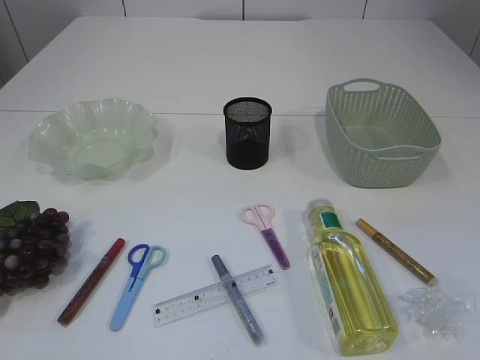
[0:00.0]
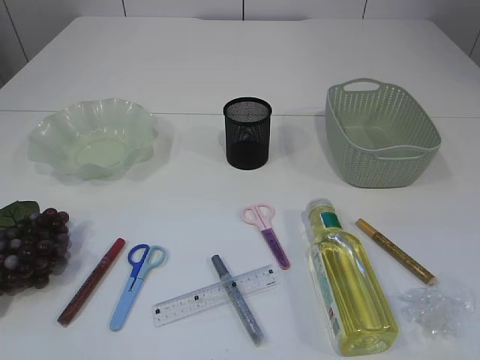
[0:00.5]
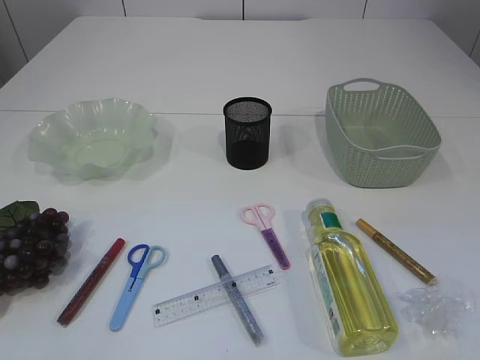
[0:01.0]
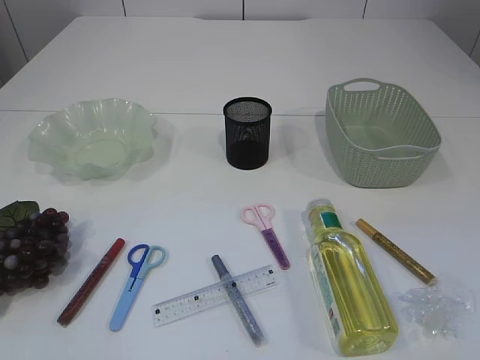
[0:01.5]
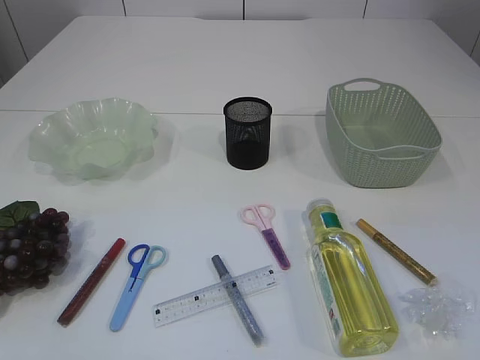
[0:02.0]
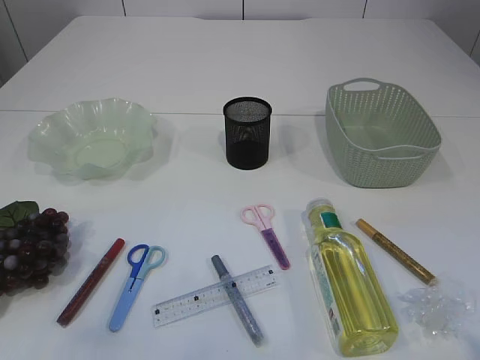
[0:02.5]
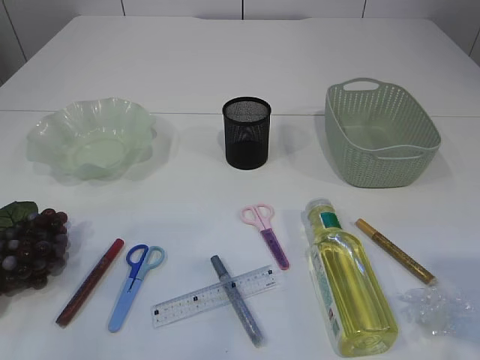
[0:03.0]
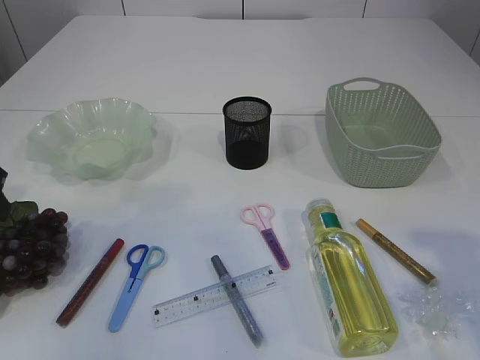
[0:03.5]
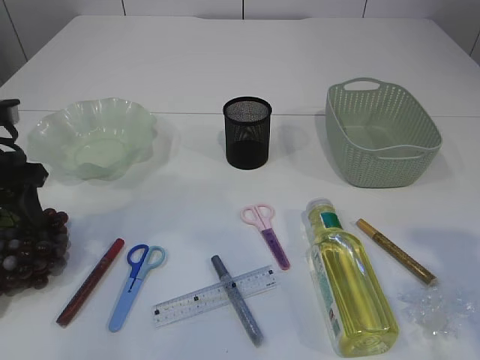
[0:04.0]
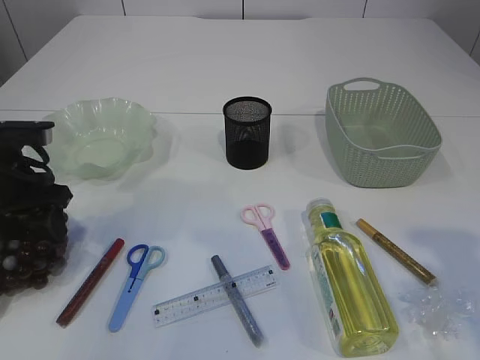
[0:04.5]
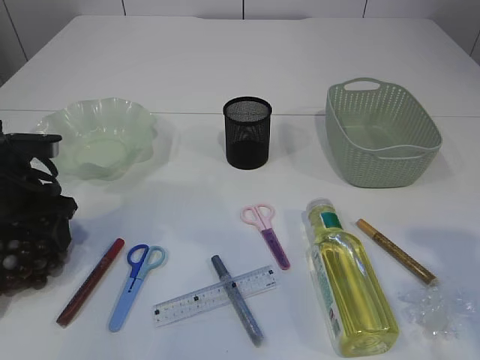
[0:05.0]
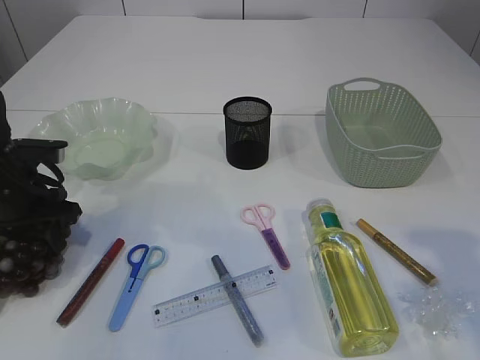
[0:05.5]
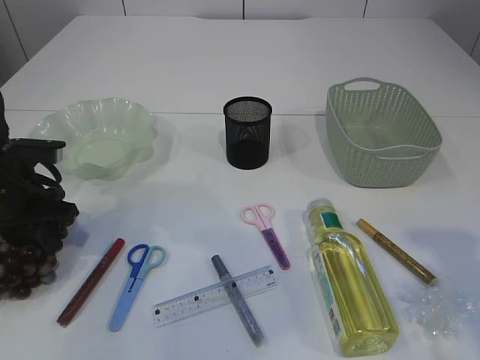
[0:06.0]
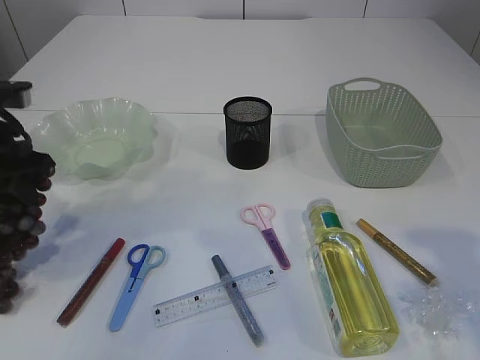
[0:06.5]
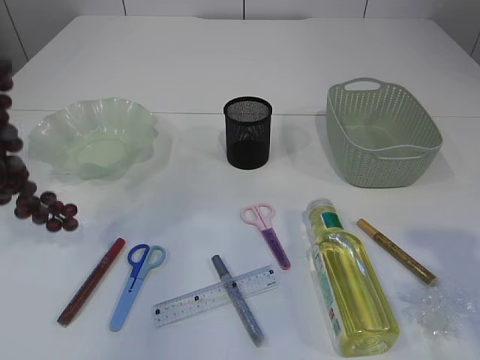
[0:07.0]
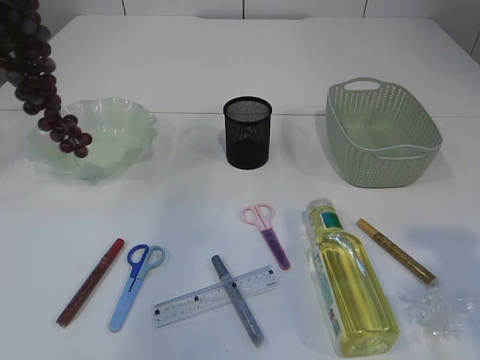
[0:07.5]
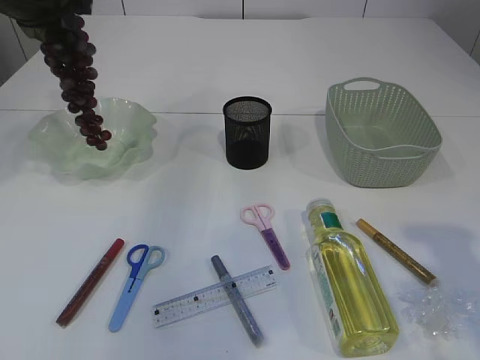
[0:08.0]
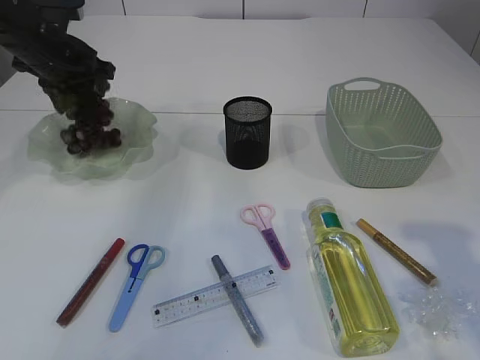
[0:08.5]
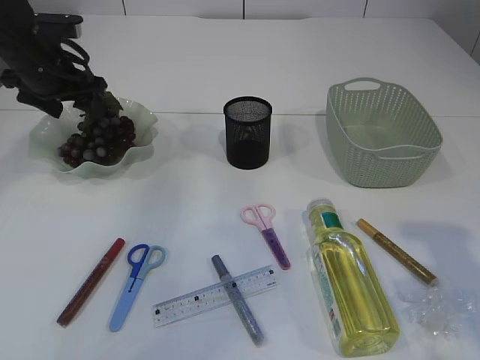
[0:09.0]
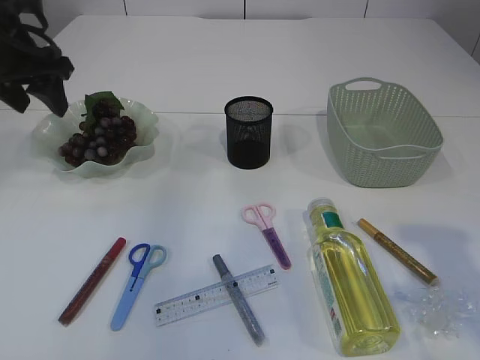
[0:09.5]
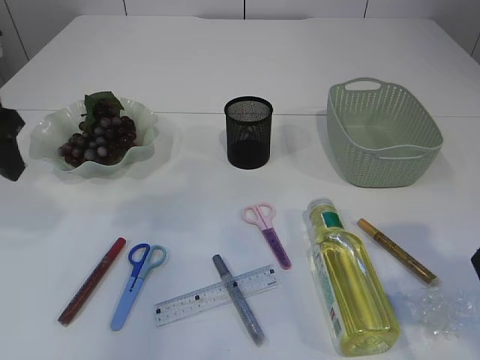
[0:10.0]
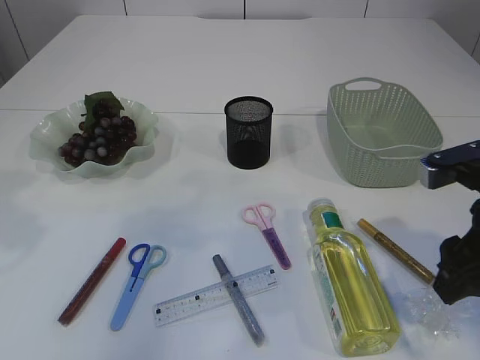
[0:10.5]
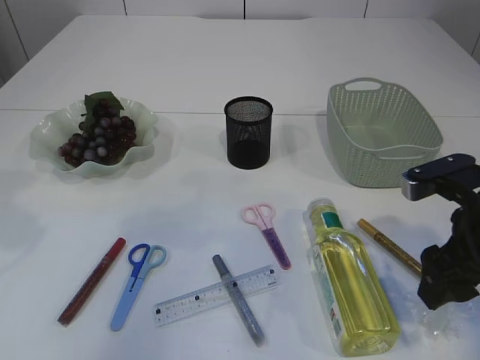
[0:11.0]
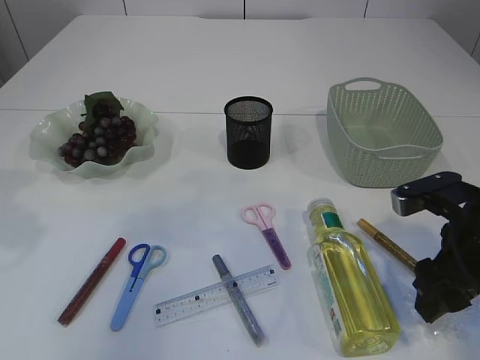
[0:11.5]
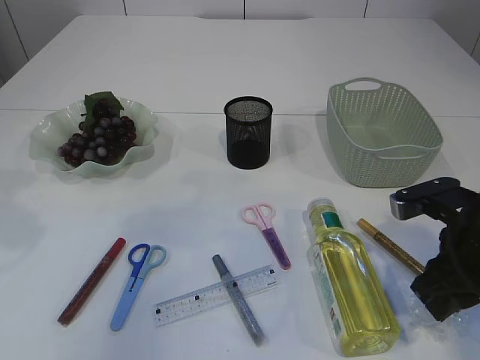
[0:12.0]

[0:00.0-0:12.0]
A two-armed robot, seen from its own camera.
Step, 0:00.0 to 0:07.0: Pick up the grapes.
Step, 0:07.5 to 0:09.5: Place the grapes in the plate.
0:02.0 to 0:04.0: The left gripper travels forward by roughly 35 cm, while the right gripper is displaced forward by roughly 15 cm.
0:04.0 to 0:06.0: The left gripper shifts some 5 cm downward, and closes its fingers.
0:06.0 to 0:08.0: The left gripper shifts roughly 20 cm upward and forward.
0:08.0 to 0:10.0: The left gripper heads backward, covering approximately 15 cm, and opens its fingers.
0:10.0 to 0:12.0: The left gripper shifts by approximately 5 cm, while the right gripper moves downward and forward, about 15 cm, and closes up.

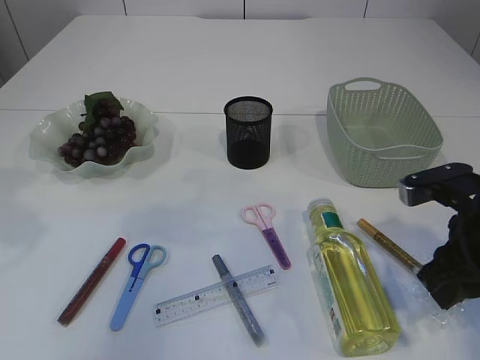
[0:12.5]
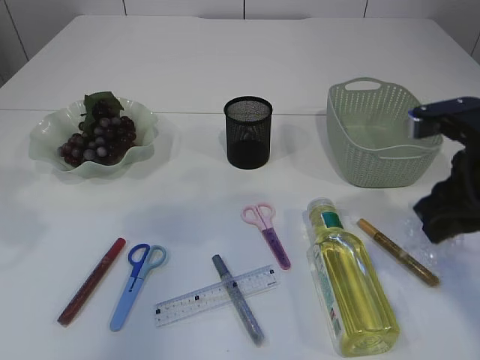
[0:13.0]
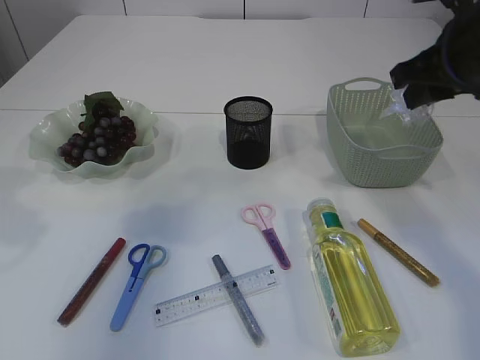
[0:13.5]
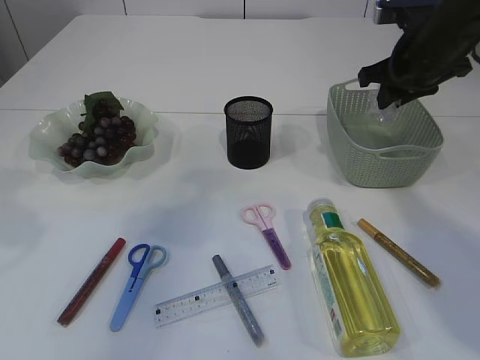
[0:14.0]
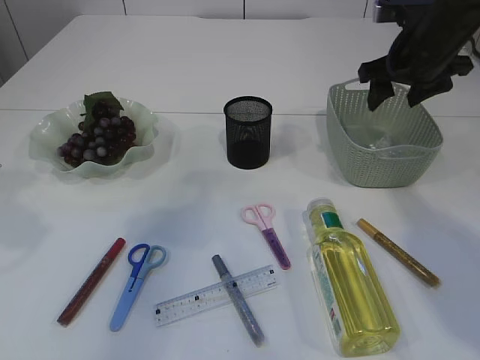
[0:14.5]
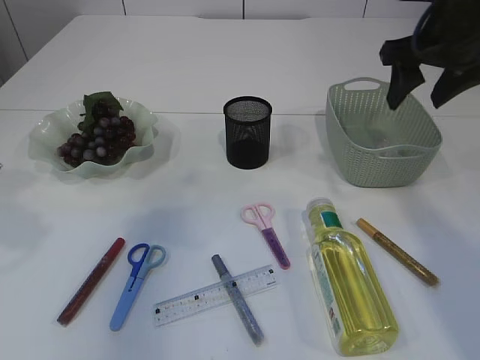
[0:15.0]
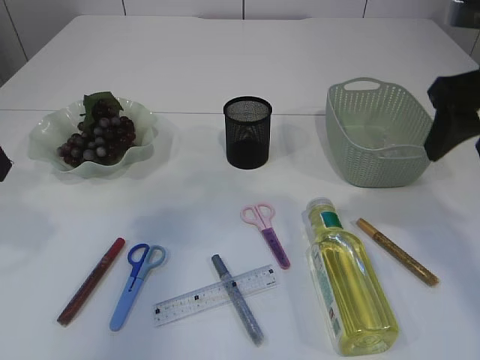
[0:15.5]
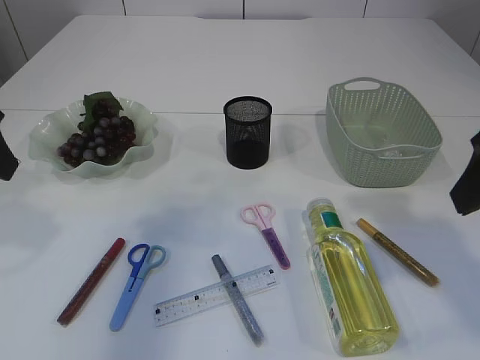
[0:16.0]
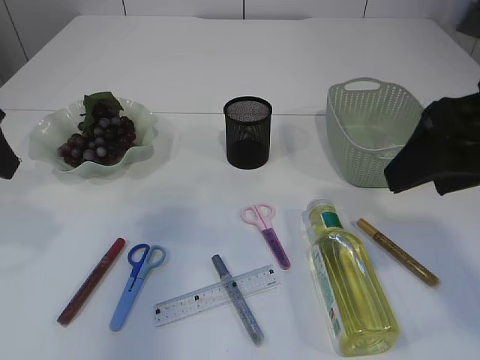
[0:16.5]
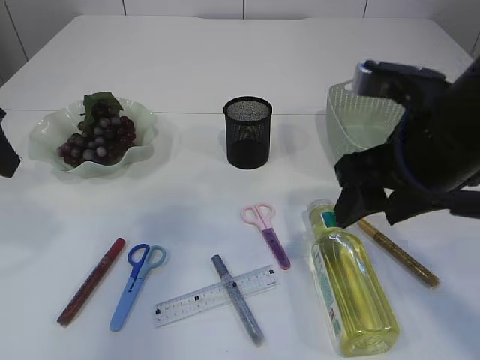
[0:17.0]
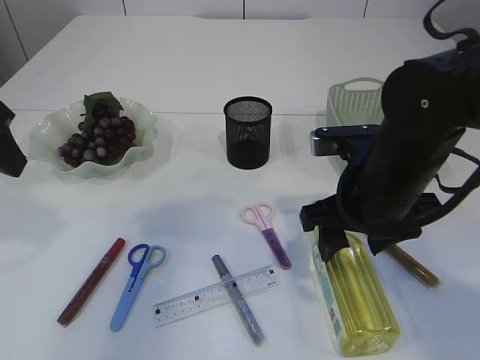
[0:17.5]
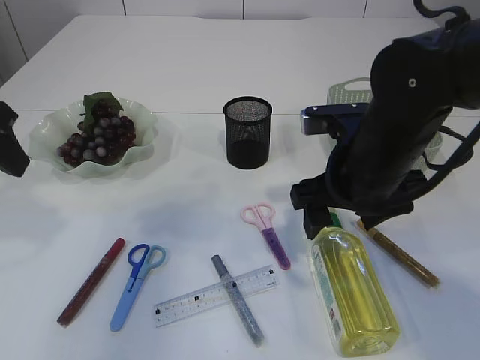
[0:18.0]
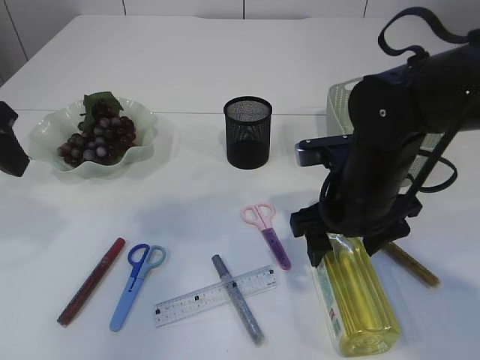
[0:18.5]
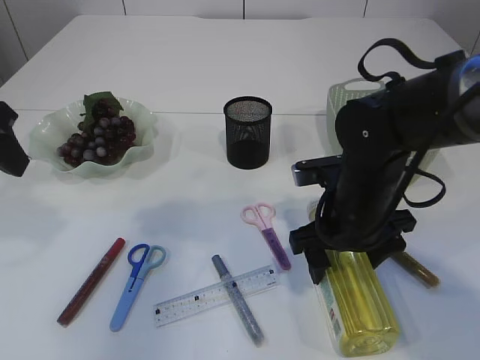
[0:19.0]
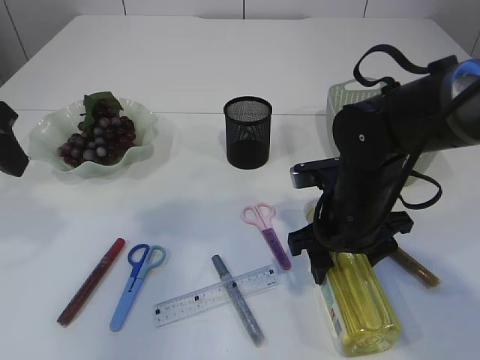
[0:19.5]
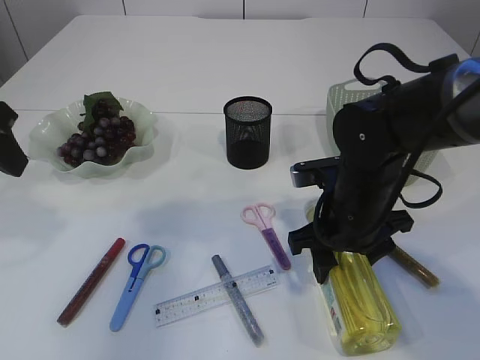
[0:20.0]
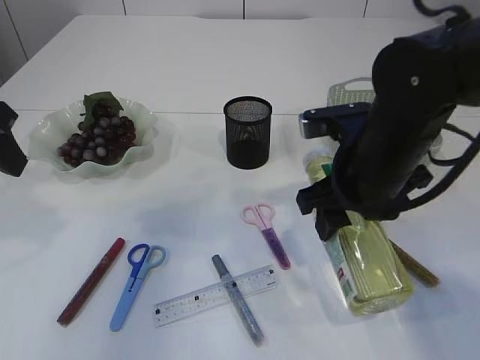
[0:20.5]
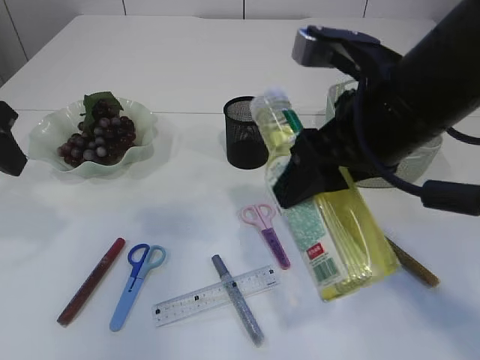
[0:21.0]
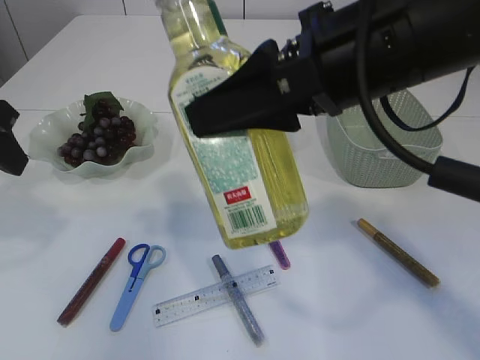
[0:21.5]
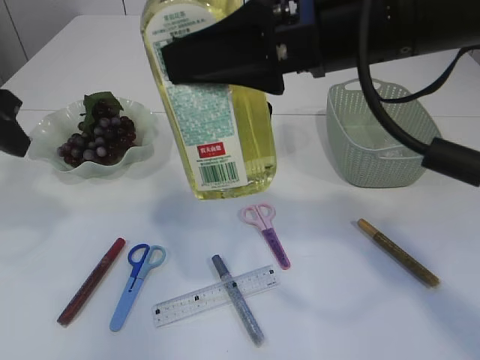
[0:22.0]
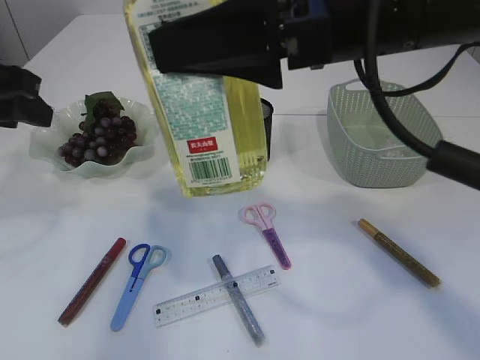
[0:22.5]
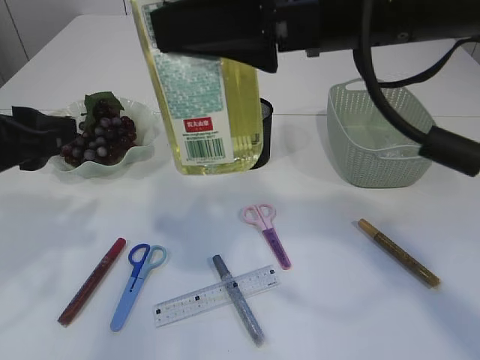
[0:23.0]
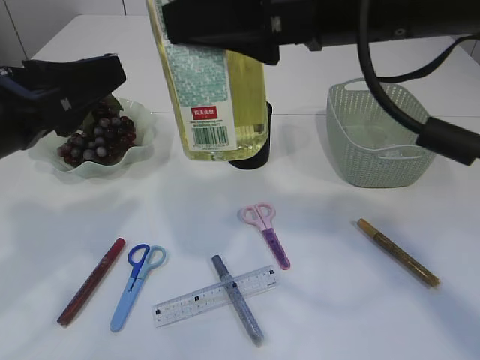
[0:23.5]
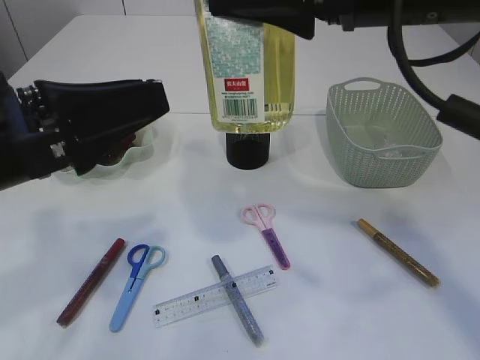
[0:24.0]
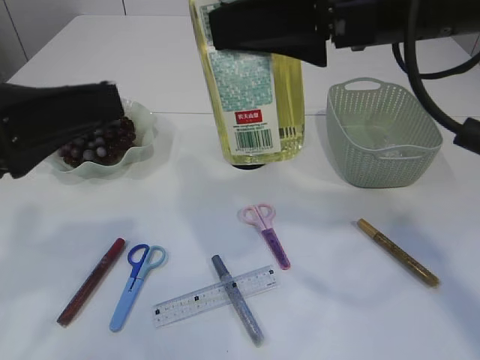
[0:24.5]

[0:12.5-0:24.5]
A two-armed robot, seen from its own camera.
Step, 0:13.0 to 0:15.0: Place the plastic in the basket.
Step, 0:15.5 to 0:20.5: Pick up the bottle with the right arm.
0:12.5 to 0:14.5: The right gripper shifts roughly 20 cm forward and upward, and opens up.
0:14.5 to 0:16.5: The right gripper travels backward by roughly 25 cm.
0:16.5 to 0:18.5: The right gripper is displaced downward, forward and to the left by about 20 cm.
0:18.5 to 0:20.5: The grippers make only small movements.
0:20.5 to 0:22.5: The right gripper shifts approximately 15 cm upward.
0:22.5 to 0:24.5: The left gripper heads backward, covering about 10 cm.

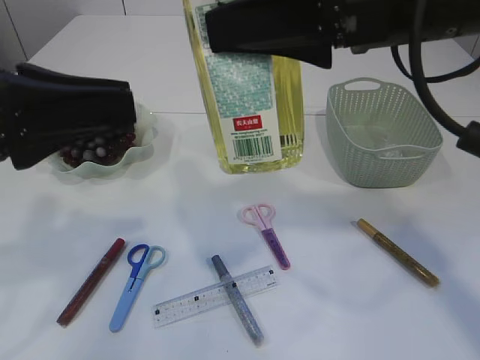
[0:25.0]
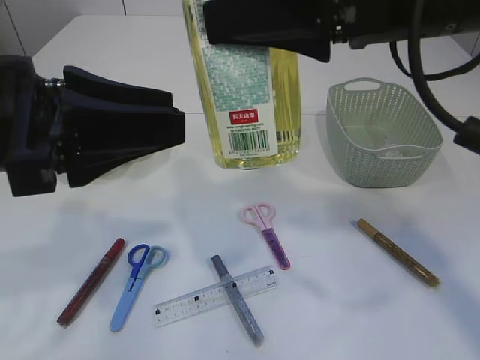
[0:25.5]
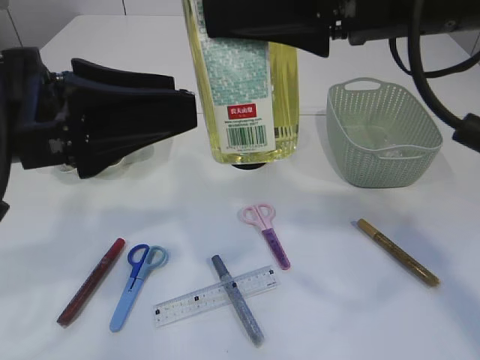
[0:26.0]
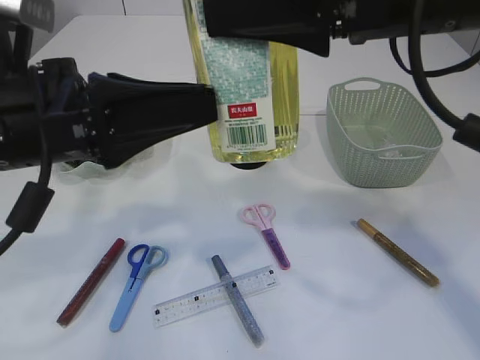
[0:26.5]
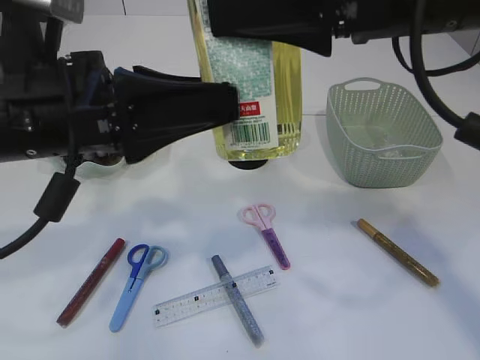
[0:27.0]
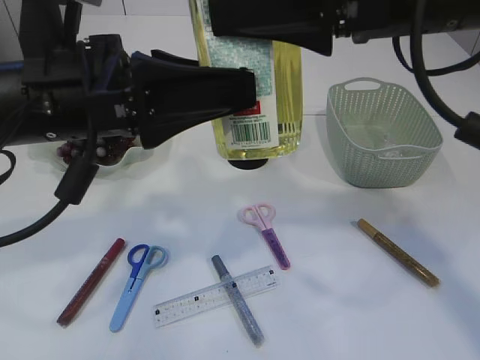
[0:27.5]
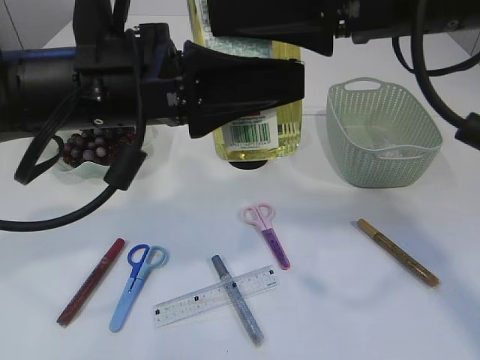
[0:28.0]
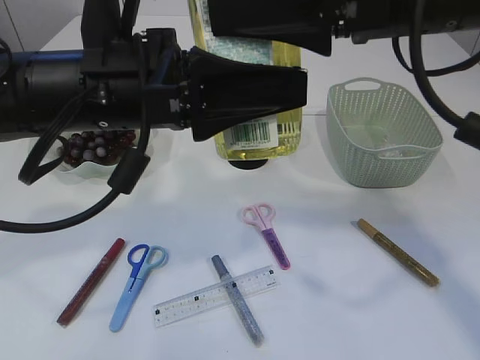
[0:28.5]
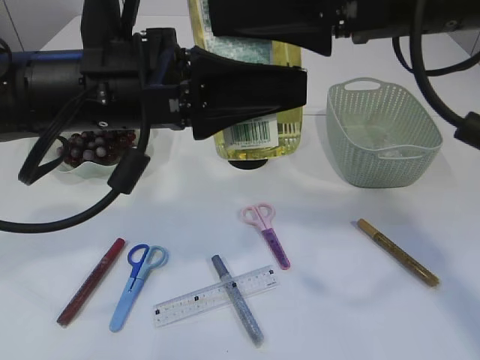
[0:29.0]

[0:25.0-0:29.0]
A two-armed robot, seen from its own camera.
0:25.0 to 0:27.0: The left gripper is displaced to the right by about 5 cm, and opens its fingers.
0:27.0 to 0:29.0: The left gripper shifts by roughly 5 cm.
